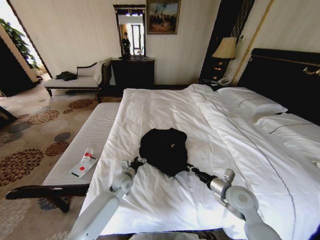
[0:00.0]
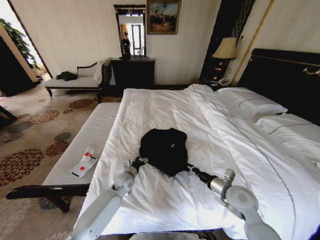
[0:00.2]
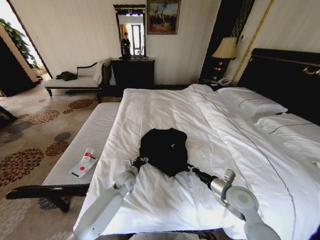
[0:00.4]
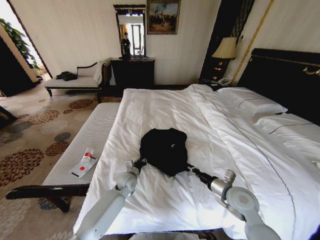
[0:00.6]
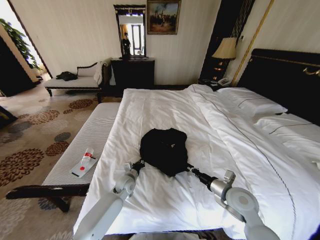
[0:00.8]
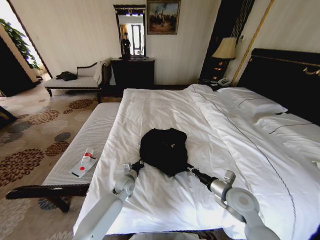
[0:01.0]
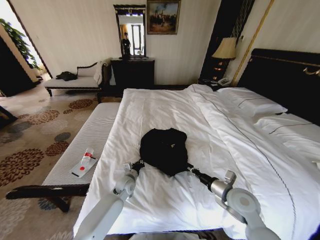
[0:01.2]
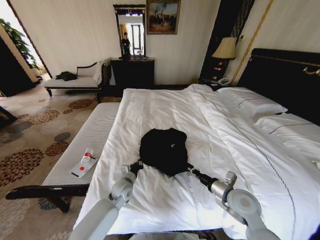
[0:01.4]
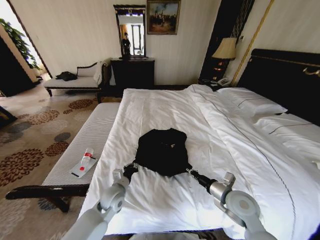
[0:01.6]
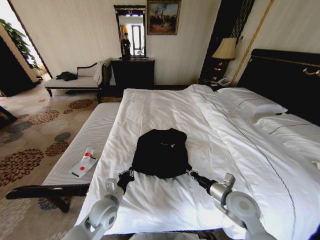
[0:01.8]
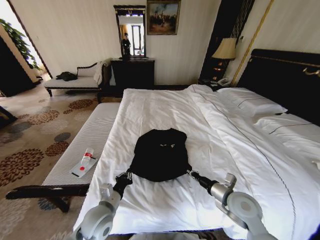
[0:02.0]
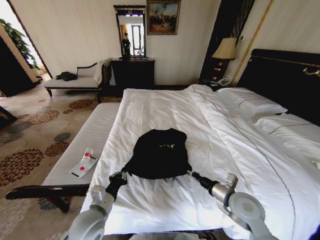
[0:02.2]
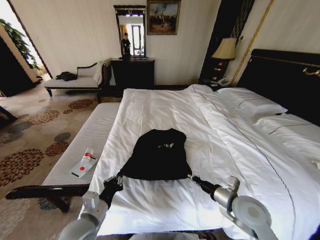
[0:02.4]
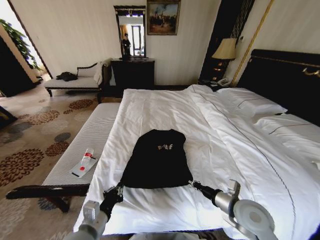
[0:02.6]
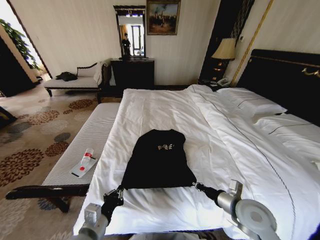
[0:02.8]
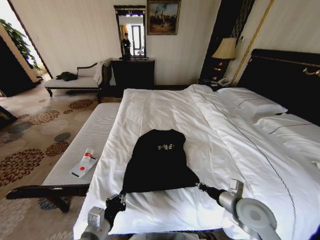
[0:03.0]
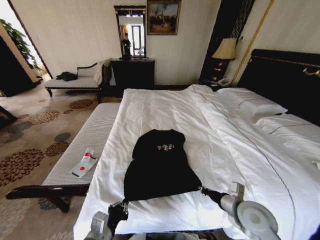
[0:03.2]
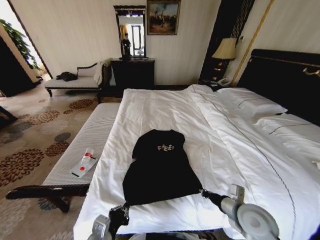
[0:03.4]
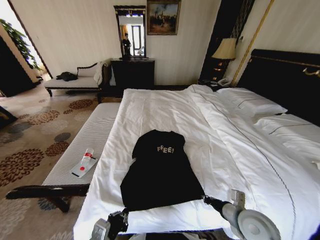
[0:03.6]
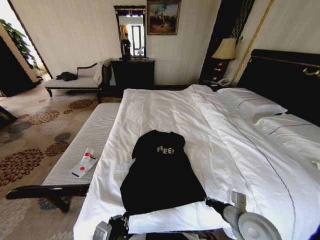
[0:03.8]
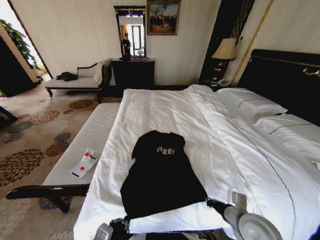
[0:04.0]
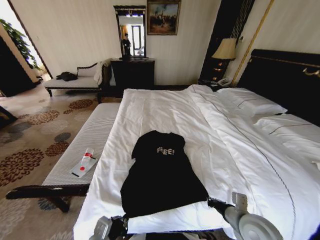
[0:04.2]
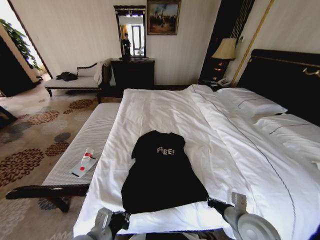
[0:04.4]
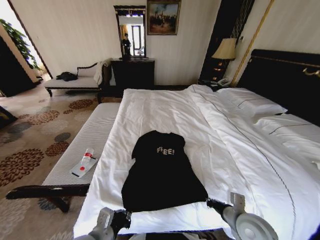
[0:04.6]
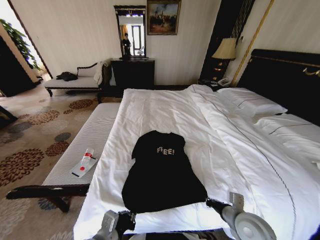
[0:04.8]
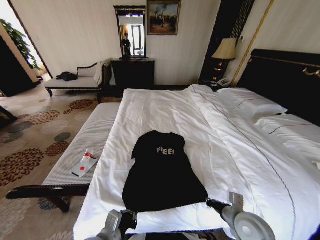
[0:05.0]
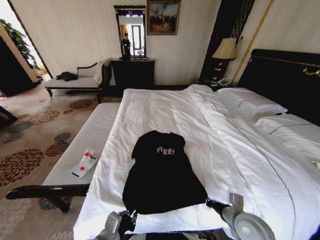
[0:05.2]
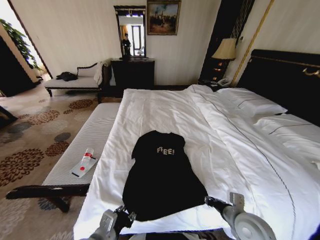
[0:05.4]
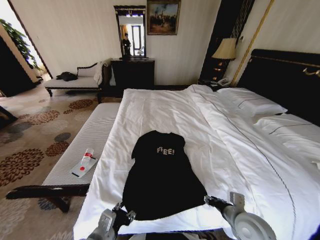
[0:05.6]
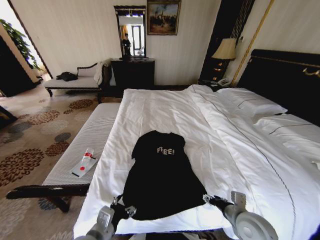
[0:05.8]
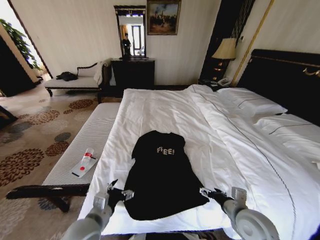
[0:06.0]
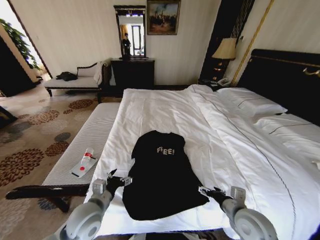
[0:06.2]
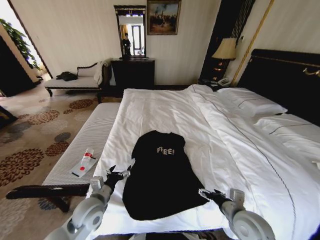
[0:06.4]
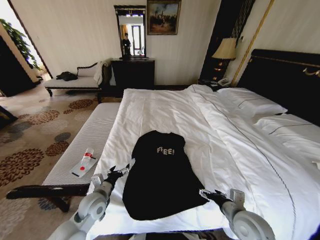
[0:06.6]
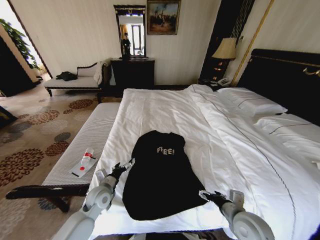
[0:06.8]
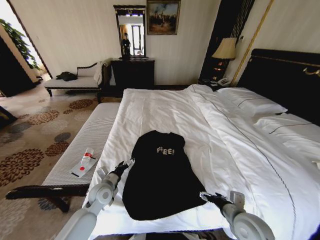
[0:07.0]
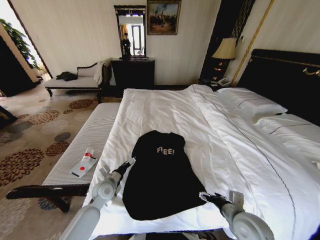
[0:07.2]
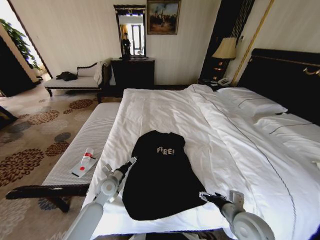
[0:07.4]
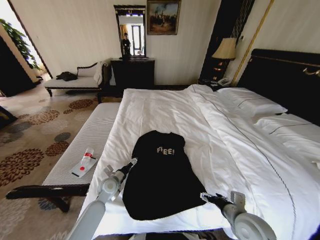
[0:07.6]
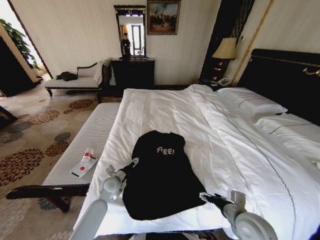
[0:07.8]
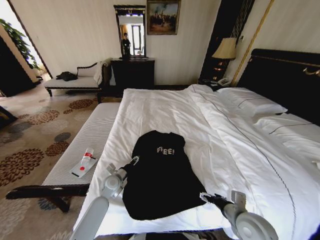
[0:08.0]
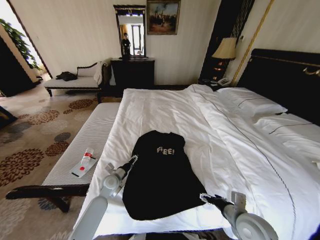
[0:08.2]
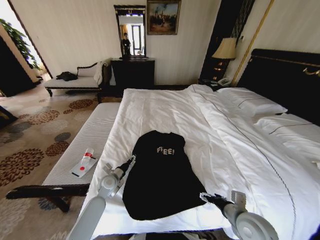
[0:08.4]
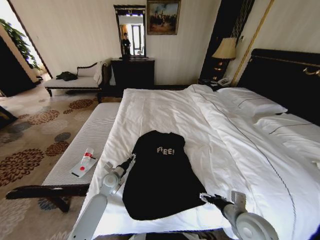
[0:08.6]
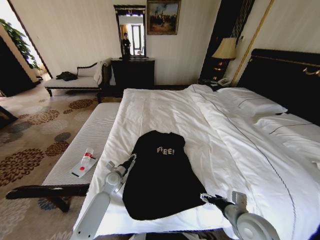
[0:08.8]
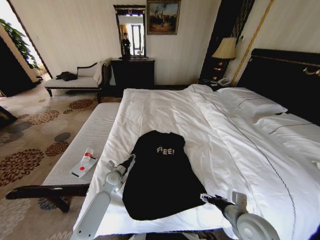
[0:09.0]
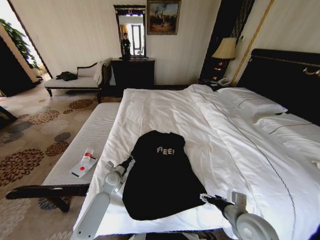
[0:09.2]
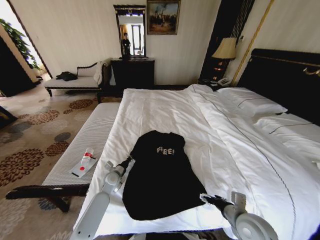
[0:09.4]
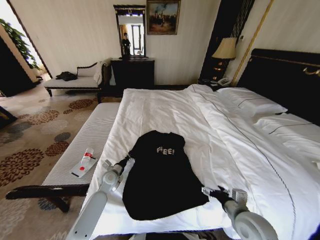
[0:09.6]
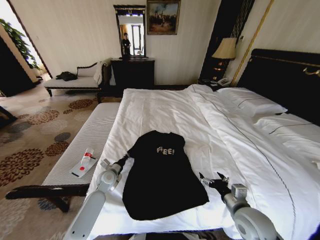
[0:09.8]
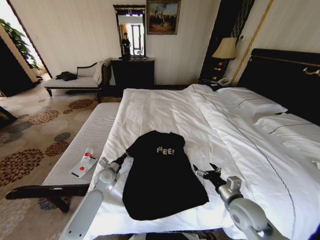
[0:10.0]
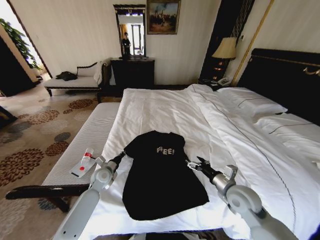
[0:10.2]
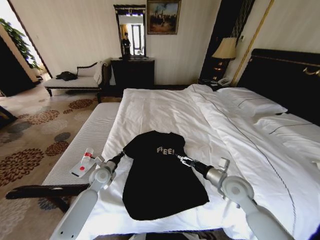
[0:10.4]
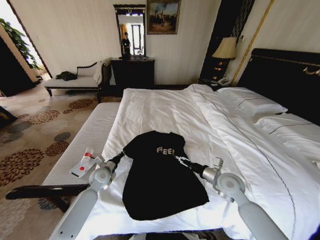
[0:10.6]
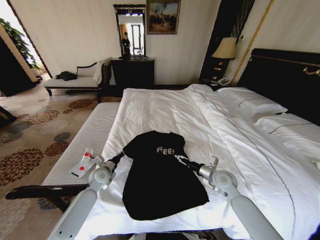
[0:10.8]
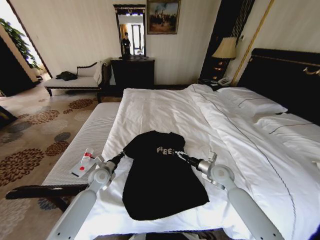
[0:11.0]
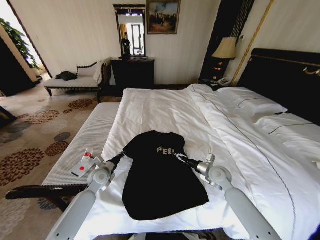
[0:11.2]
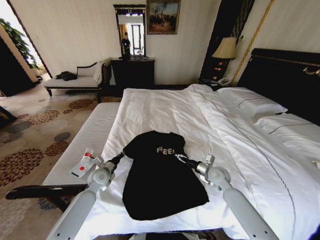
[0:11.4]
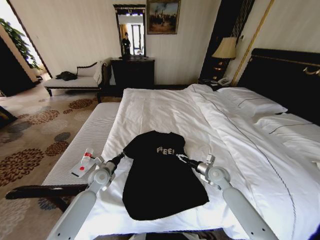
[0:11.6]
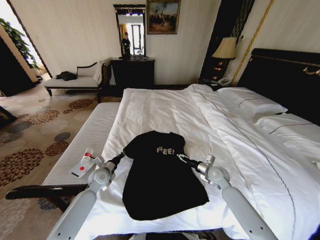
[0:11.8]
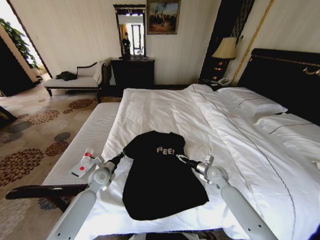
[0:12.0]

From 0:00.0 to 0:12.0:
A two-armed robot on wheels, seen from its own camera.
Task of the whole recording: Fold the clothes on the bed.
From 0:00.0 to 0:01.6: The left gripper goes some 5 cm backward, and closes.
From 0:01.6 to 0:03.0: The left gripper moves backward and upward, about 20 cm.
From 0:04.4 to 0:06.0: The left gripper opens up. Meanwhile the right gripper opens up.
From 0:06.0 to 0:07.6: The left gripper is displaced forward and downward by some 20 cm.
From 0:07.6 to 0:09.0: The left gripper closes up.
From 0:09.0 to 0:10.4: The right gripper travels forward by some 10 cm. Meanwhile the left gripper shifts by about 5 cm, and closes up.
From 0:10.4 to 0:12.0: The right gripper travels forward and downward by about 15 cm.

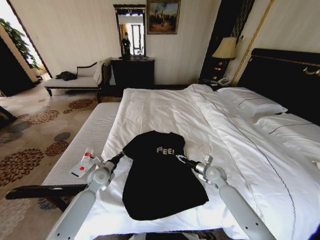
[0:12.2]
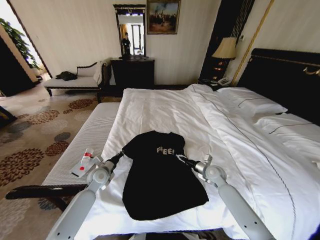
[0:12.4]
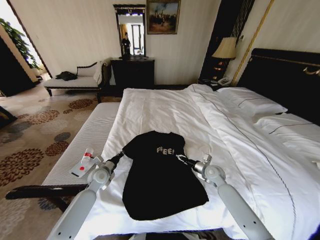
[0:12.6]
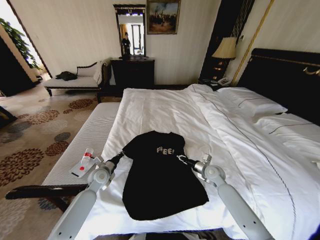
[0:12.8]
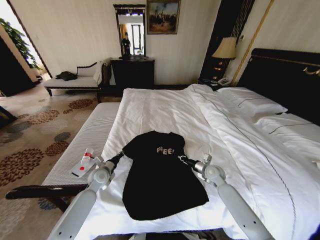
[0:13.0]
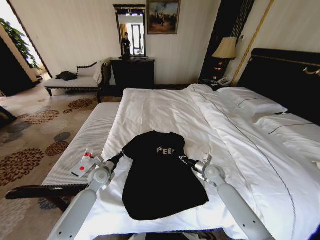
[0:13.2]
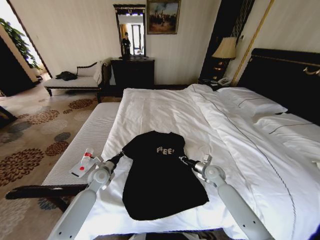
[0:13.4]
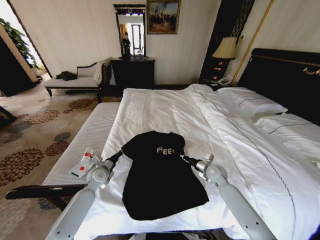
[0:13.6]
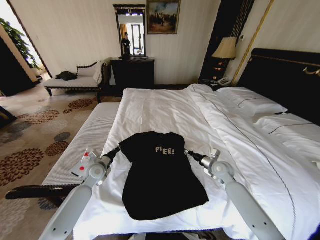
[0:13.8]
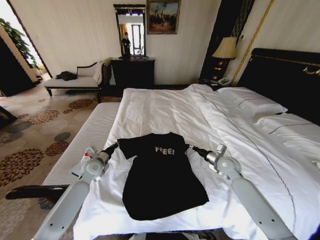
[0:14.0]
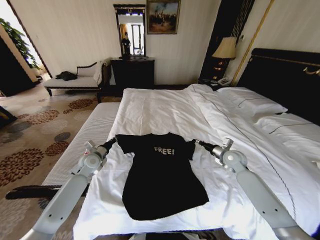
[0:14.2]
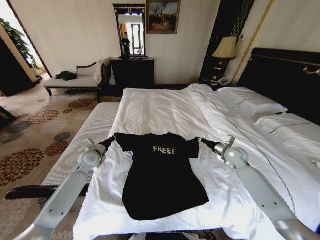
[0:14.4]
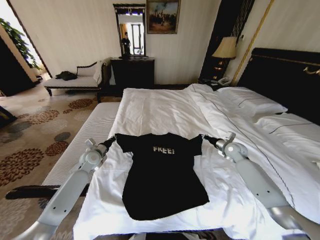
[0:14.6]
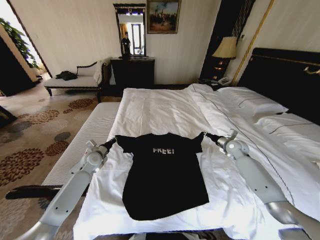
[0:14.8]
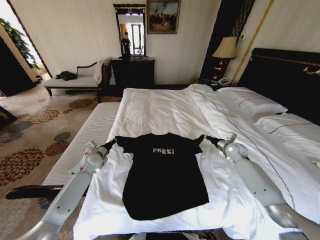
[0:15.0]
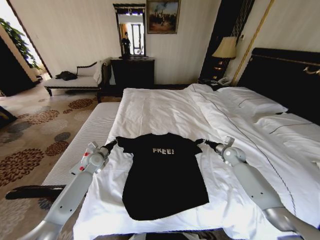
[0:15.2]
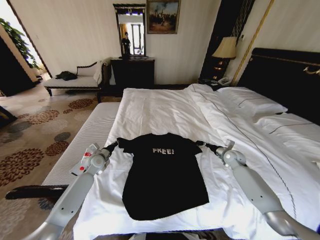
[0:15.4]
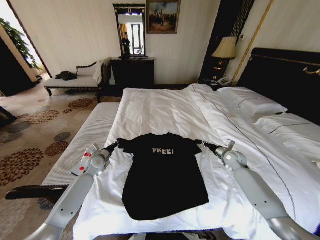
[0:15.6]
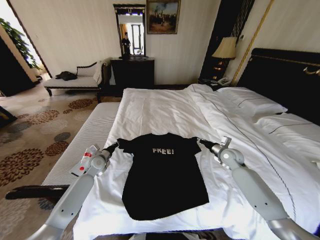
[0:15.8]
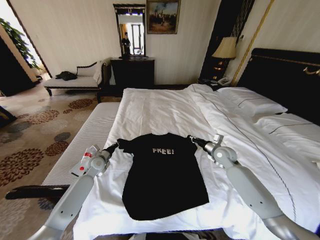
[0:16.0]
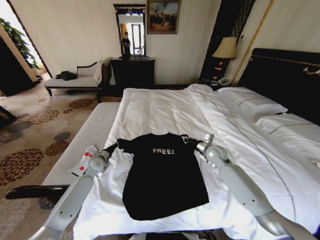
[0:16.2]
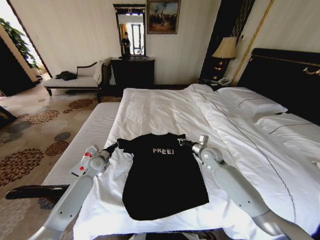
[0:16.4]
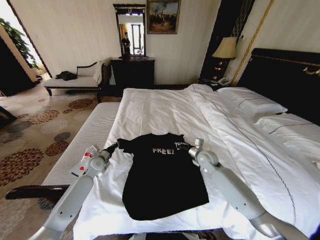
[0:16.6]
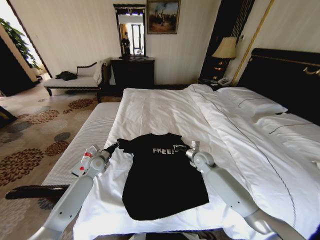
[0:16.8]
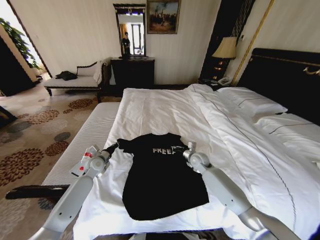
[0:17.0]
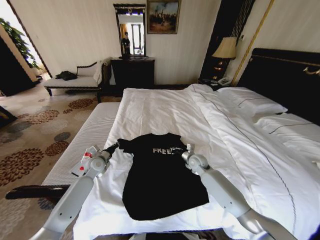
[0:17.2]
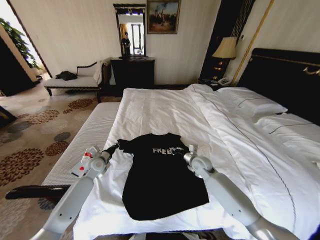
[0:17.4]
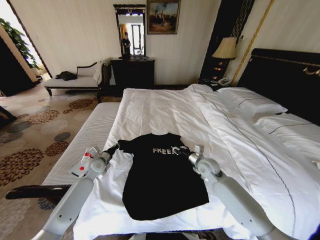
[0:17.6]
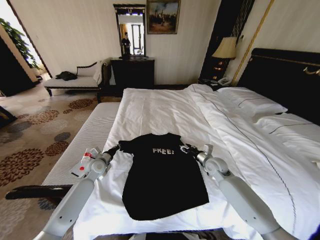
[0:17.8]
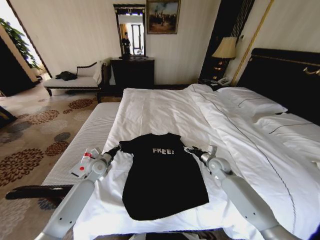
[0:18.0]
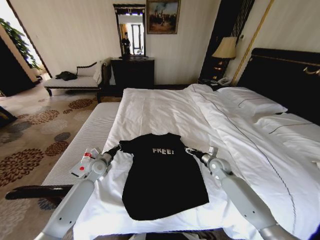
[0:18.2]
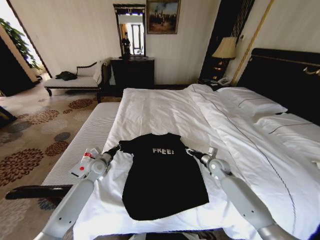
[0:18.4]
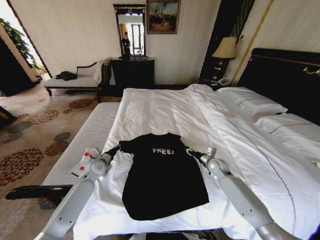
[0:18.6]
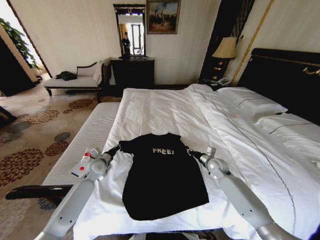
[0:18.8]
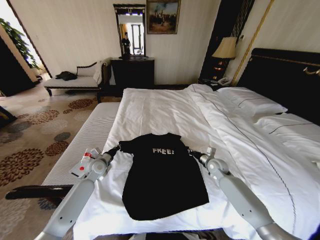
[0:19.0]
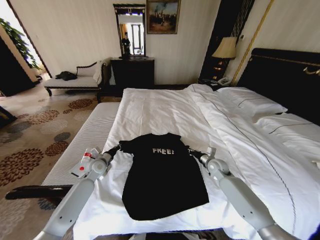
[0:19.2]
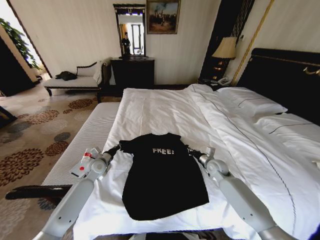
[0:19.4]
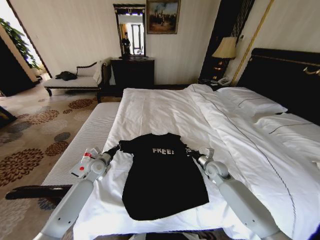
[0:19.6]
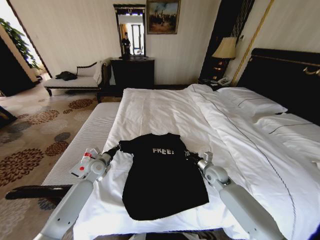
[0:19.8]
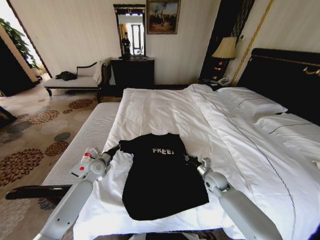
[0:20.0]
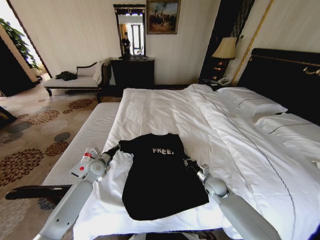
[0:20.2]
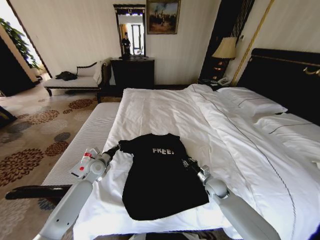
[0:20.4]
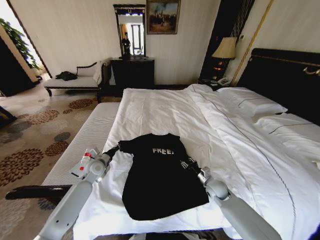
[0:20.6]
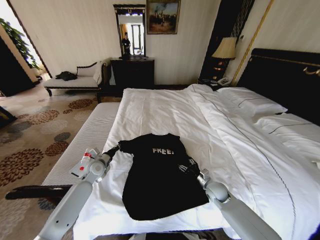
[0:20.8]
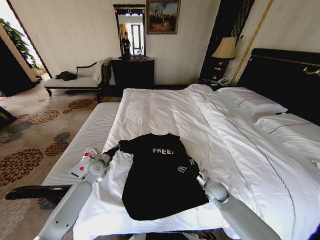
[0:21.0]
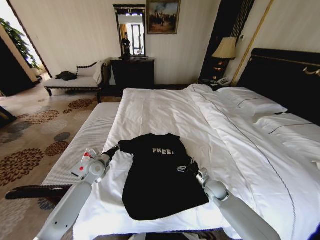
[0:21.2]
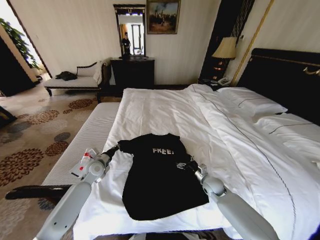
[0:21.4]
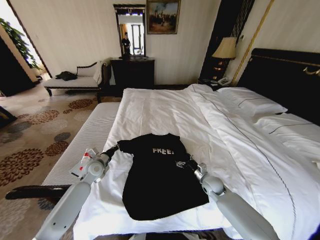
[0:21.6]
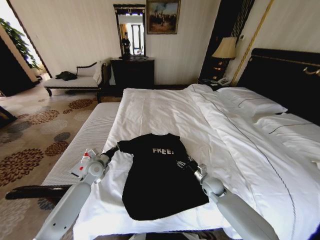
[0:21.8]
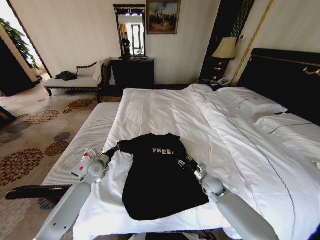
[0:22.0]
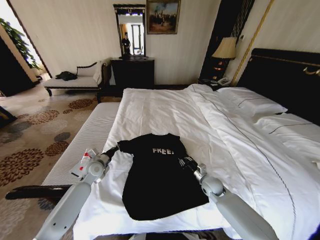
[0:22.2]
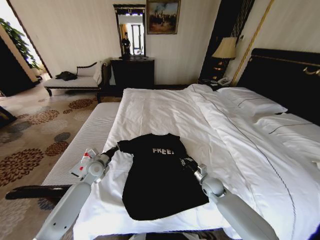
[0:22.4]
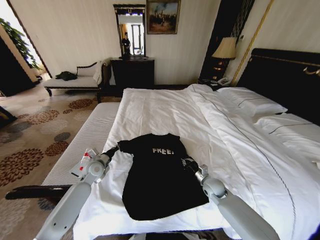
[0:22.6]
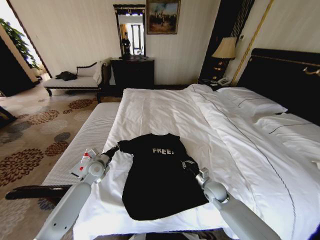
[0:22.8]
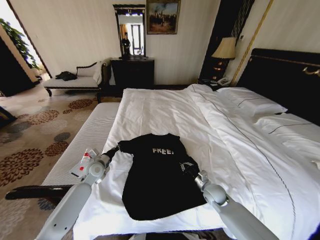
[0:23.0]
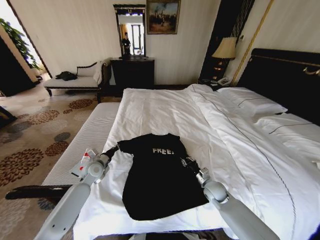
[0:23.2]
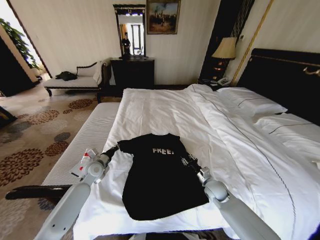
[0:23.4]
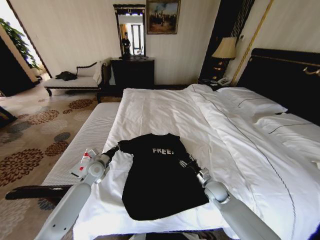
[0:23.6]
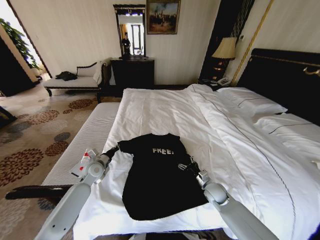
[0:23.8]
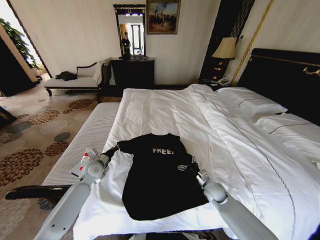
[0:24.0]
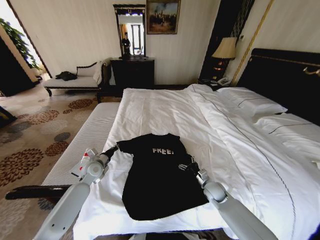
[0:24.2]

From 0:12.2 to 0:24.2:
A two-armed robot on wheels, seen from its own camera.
Task of the whole recording: Fold the clothes on the bed.
From 0:12.2 to 0:13.8: The right gripper closes up.
From 0:13.8 to 0:15.2: The left gripper is displaced forward by roughly 5 cm. Meanwhile the right gripper is displaced to the right and forward by some 15 cm.
From 0:15.2 to 0:16.6: The right gripper heads to the left, covering about 15 cm.
From 0:16.6 to 0:18.2: The right gripper moves to the right, about 10 cm, and opens its fingers.
From 0:18.2 to 0:19.8: The right gripper shifts by roughly 5 cm, and closes.
From 0:19.8 to 0:21.2: The right gripper is displaced downward by about 5 cm, and opens.
From 0:21.2 to 0:22.6: The right gripper closes up.
From 0:22.6 to 0:24.2: The right gripper opens its fingers.
